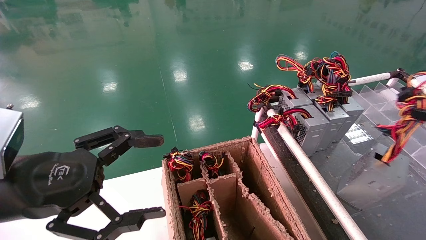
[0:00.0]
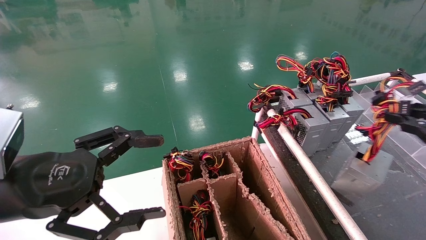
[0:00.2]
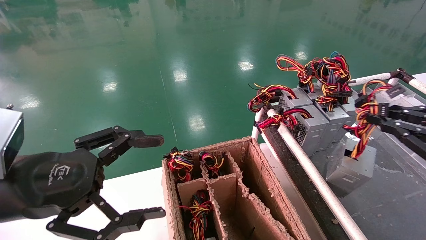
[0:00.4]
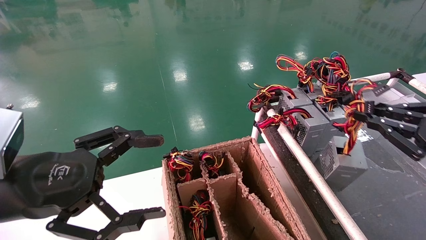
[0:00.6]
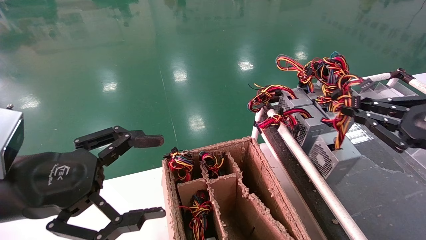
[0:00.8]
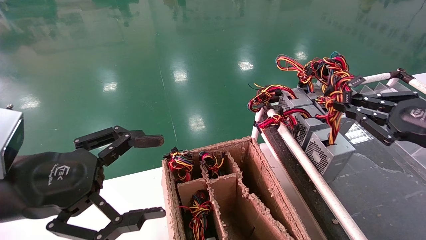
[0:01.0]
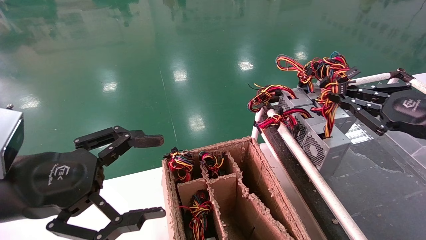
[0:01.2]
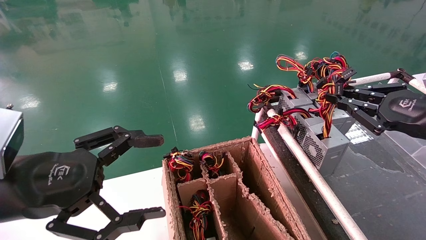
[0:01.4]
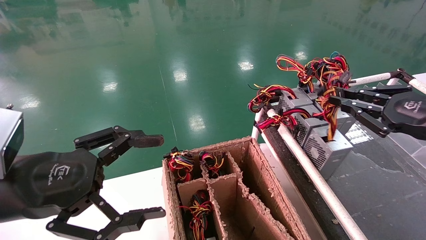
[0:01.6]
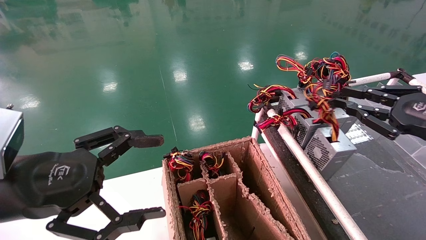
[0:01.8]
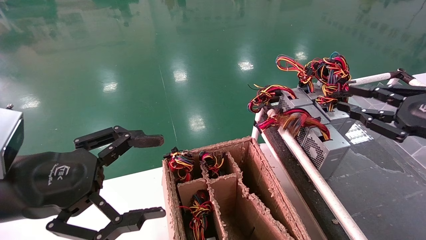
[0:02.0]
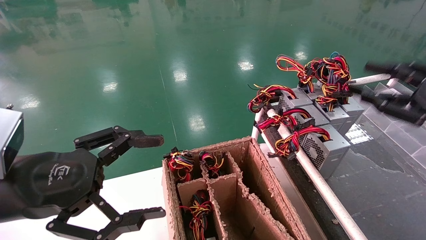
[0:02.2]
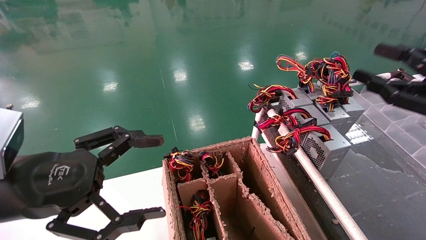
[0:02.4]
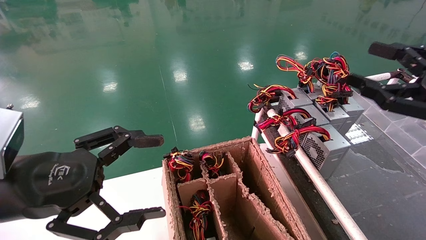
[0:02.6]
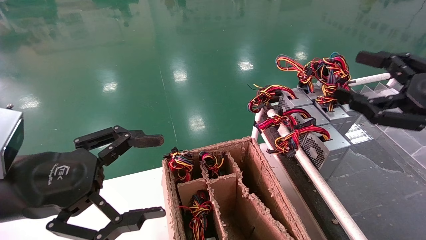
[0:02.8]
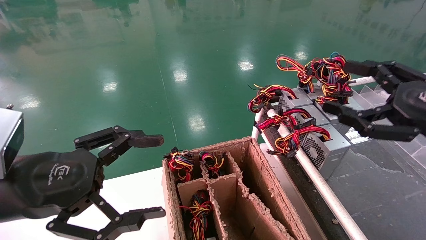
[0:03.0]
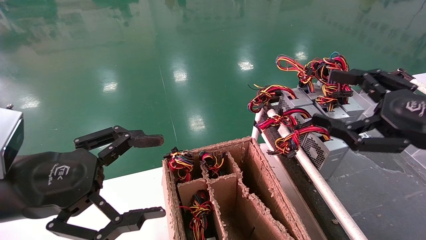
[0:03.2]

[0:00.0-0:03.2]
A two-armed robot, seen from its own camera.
0:00.0 to 0:01.6: The right gripper is displaced forward and to the left by some 10 cm.
0:01.6 to 0:03.2: The right gripper heads to the left, covering approximately 5 cm, and opens its fingers.

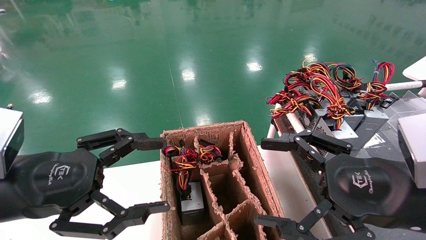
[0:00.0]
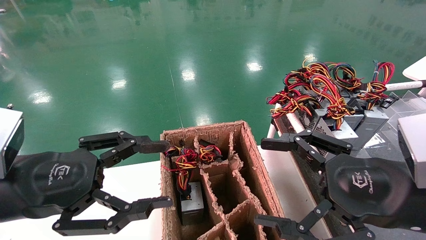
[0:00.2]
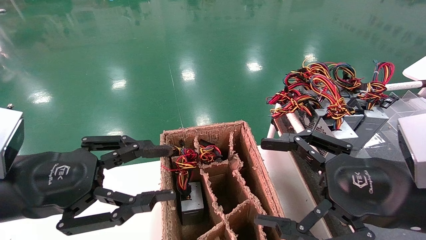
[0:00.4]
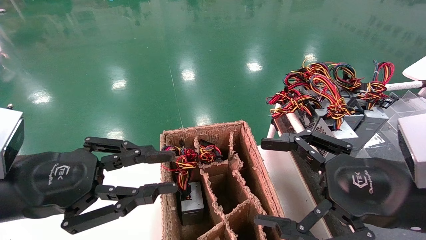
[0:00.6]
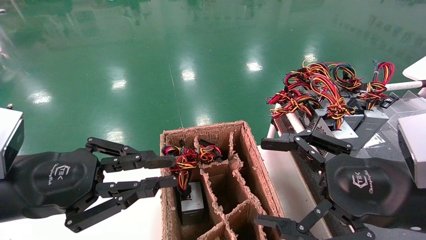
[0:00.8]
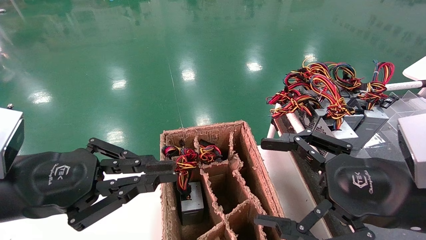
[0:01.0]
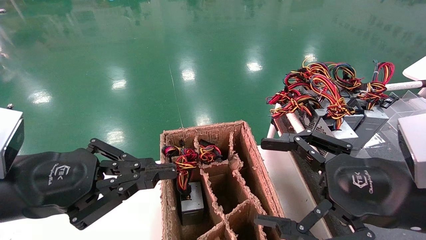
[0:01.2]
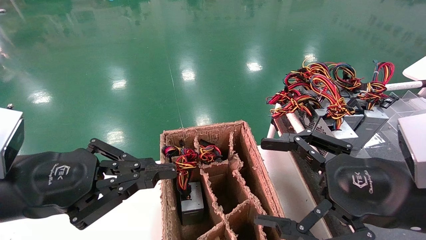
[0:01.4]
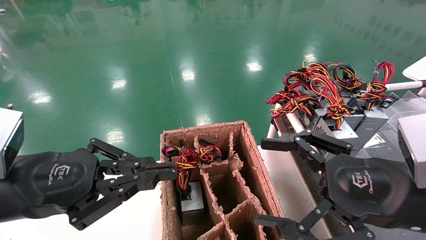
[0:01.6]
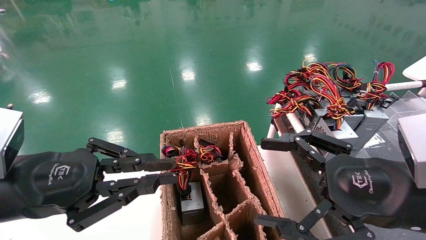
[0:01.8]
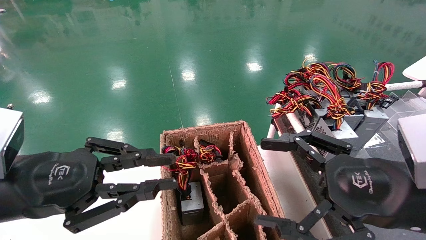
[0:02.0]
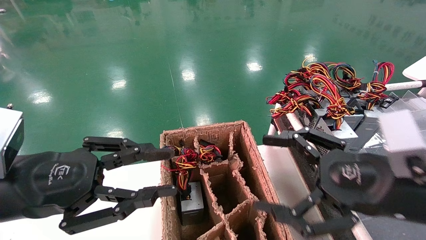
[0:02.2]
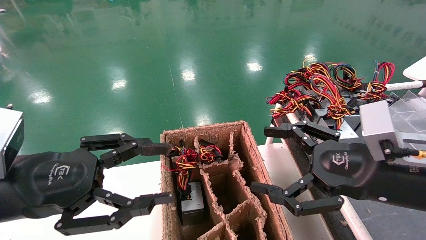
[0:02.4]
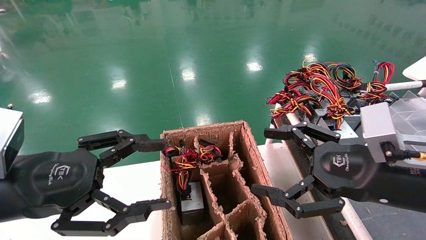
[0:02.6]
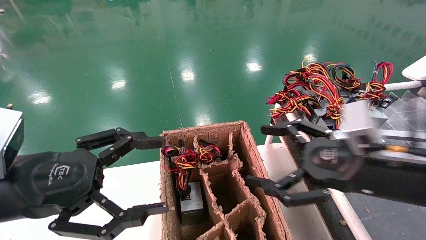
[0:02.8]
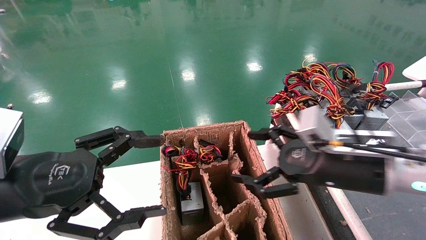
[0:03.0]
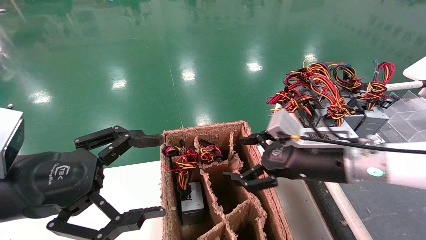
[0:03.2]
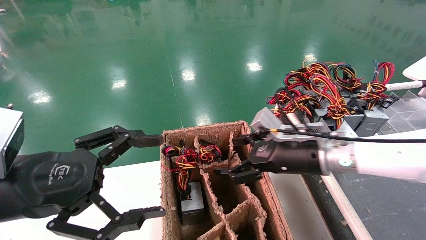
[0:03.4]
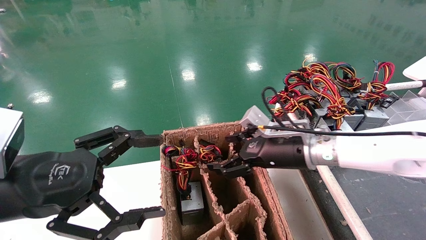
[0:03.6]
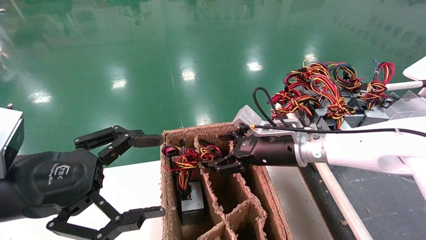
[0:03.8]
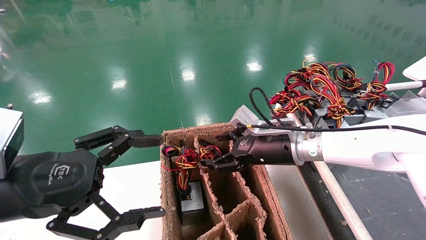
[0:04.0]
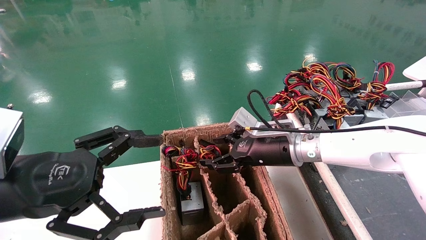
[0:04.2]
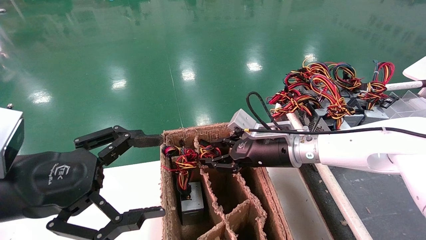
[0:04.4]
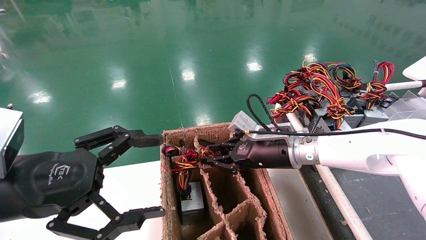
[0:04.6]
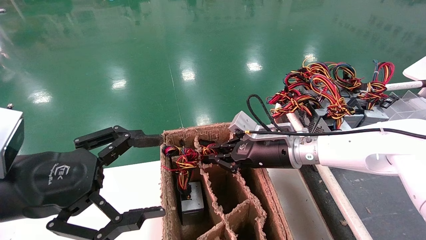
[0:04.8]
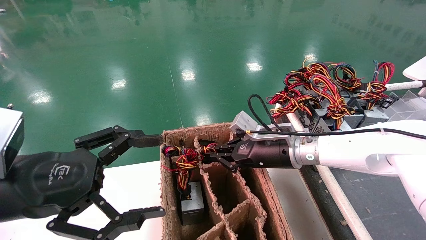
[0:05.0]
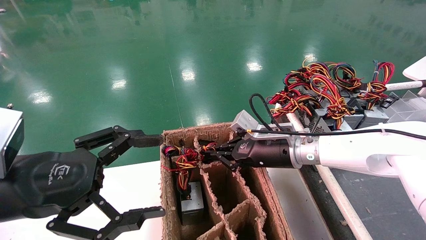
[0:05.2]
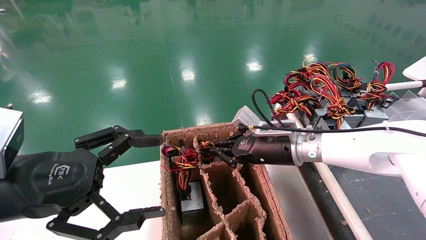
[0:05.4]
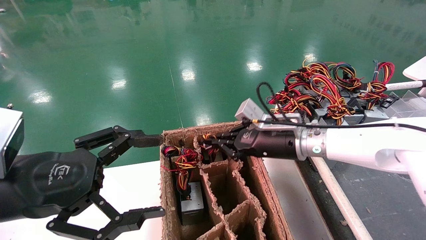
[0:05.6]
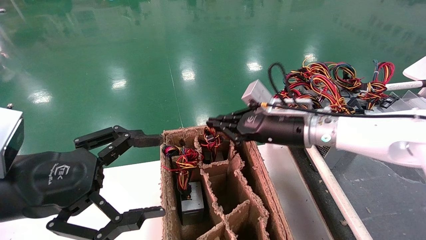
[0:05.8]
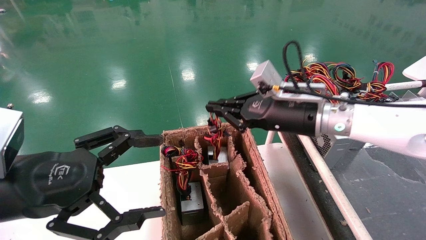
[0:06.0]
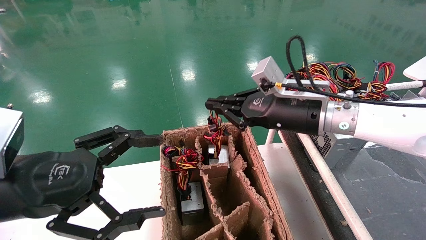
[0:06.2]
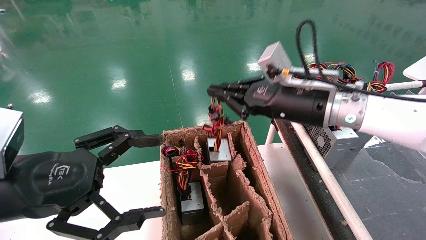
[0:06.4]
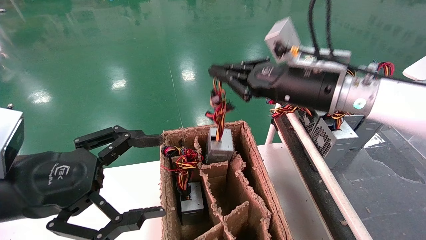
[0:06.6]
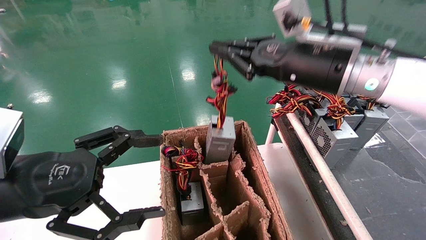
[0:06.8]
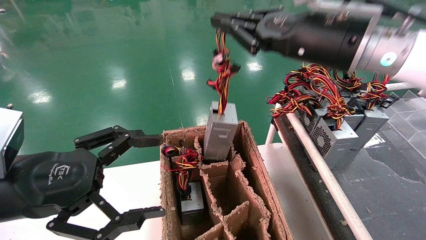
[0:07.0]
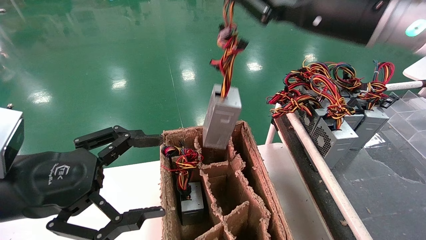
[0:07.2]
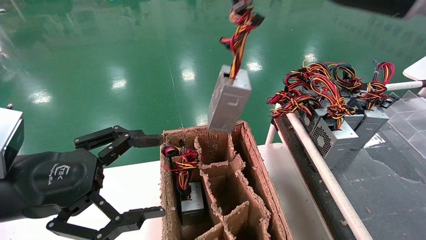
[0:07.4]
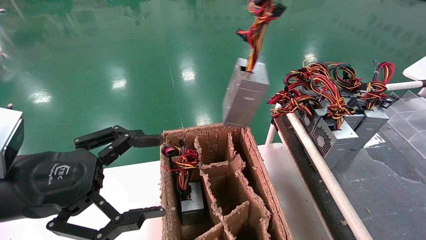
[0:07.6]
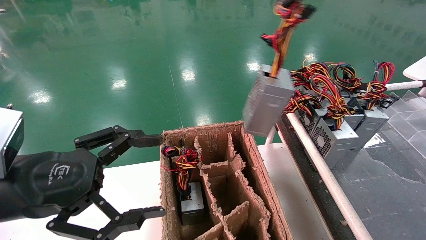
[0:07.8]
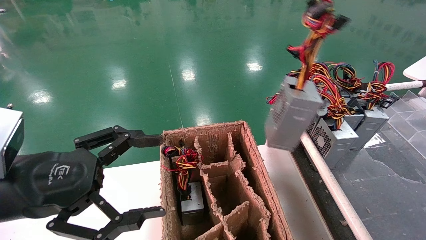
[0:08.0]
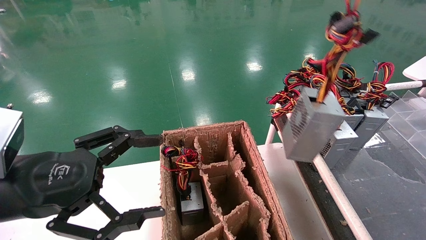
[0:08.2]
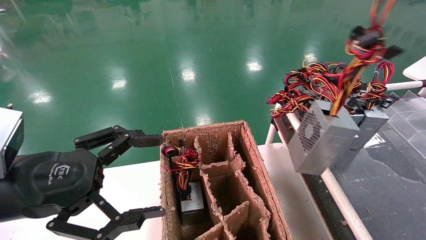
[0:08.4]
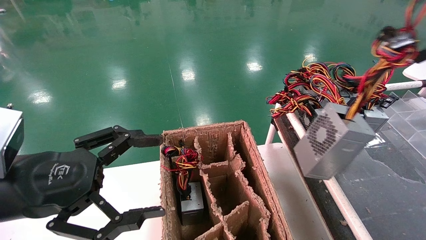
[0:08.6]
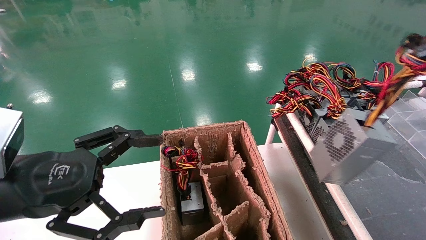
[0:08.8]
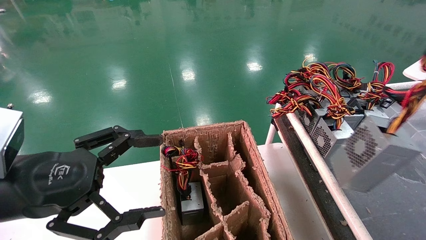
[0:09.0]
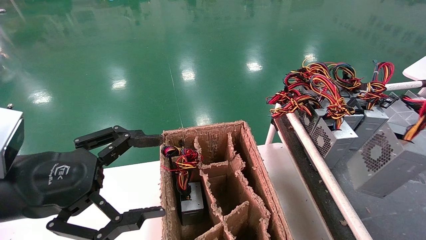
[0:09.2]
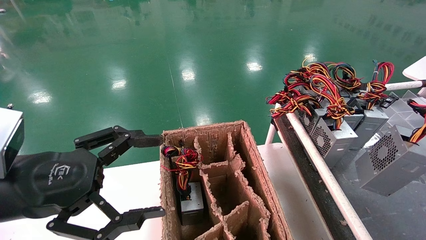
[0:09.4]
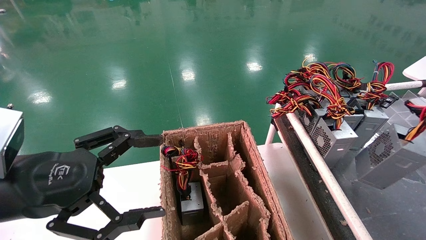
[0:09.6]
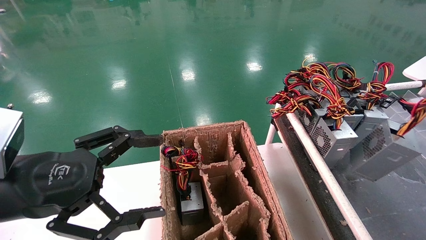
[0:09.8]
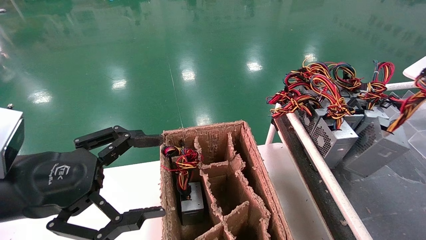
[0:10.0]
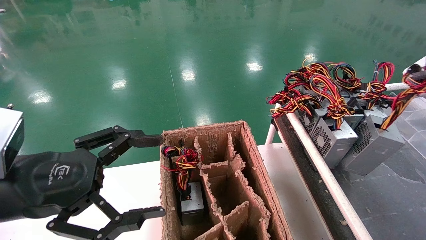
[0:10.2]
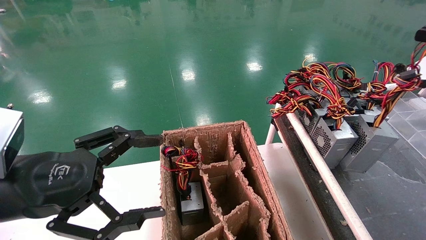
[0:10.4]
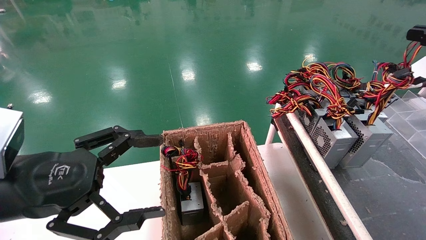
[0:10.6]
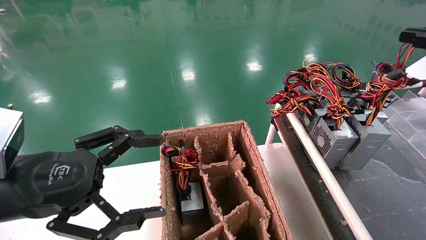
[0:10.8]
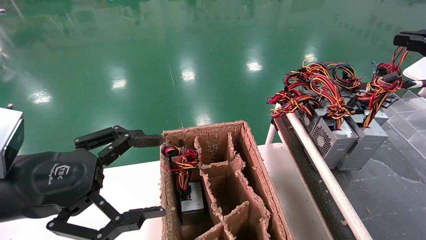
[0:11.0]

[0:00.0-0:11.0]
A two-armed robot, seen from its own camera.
Step, 0:01.2 to 0:04.8: Grab and lift the power supply from the large box.
0:00.0 to 0:01.6: The left gripper closes up.
0:01.6 to 0:03.2: The right gripper shifts approximately 15 cm forward and to the left, while the left gripper opens.
0:03.2 to 0:04.8: The right gripper heads forward and to the left, covering about 10 cm, and closes its fingers.
0:04.8 to 0:06.2: The right gripper goes about 10 cm upward.
0:06.2 to 0:07.8: The right gripper heads upward, backward and to the right, covering roughly 25 cm.
0:07.8 to 0:09.4: The right gripper goes roughly 25 cm to the right, backward and downward.
0:09.4 to 0:11.0: The right gripper travels forward by approximately 10 cm.

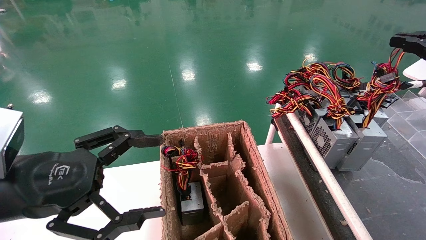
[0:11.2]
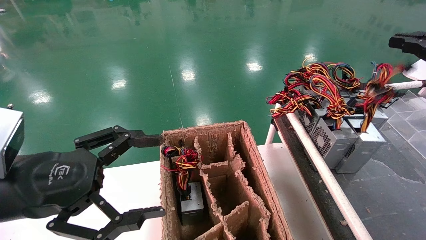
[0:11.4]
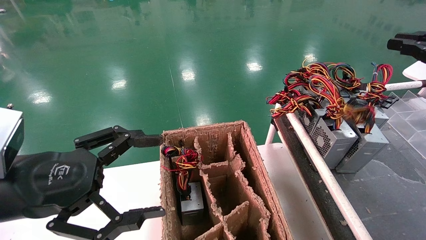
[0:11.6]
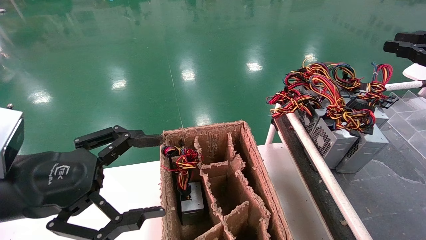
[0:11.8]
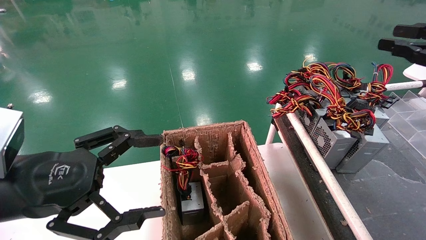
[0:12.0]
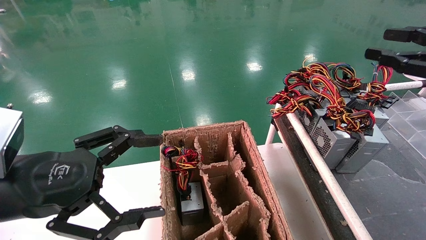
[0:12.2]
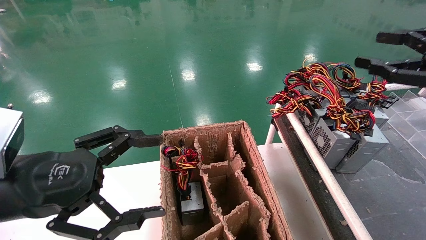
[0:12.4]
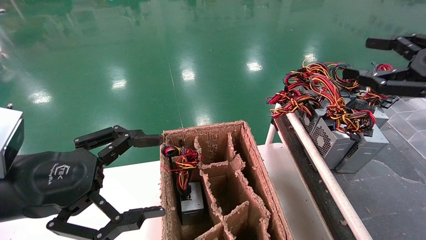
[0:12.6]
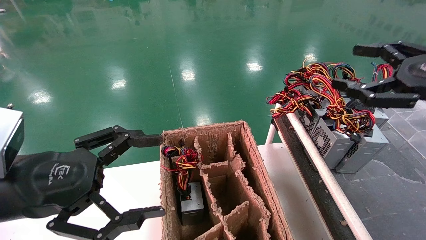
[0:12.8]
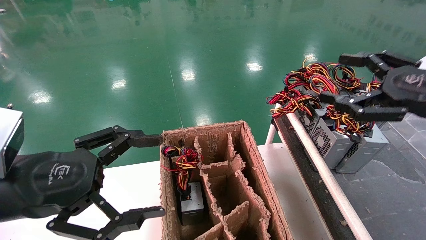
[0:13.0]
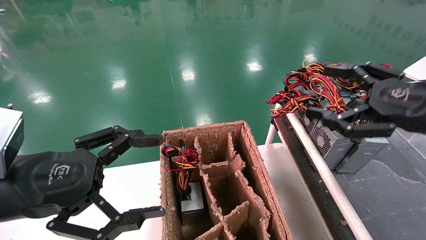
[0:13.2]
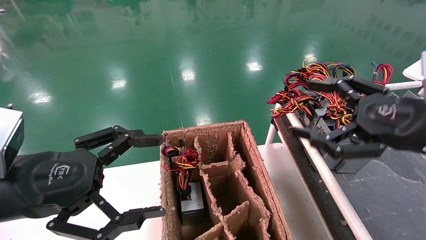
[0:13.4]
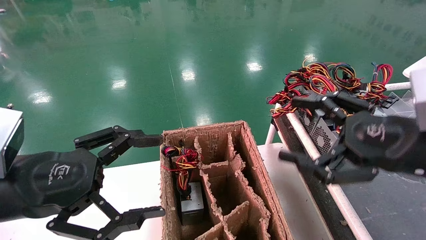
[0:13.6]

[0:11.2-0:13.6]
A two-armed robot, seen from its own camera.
0:11.2 to 0:12.4: The right gripper opens up.
0:12.4 to 0:13.6: The right gripper goes some 15 cm to the left and downward, and opens its fingers.
